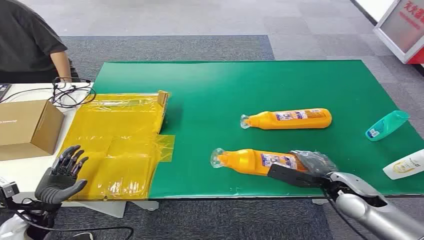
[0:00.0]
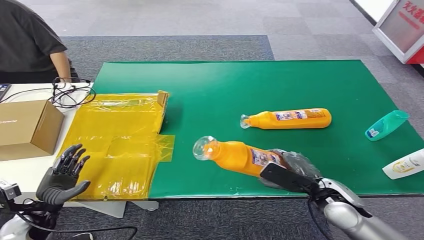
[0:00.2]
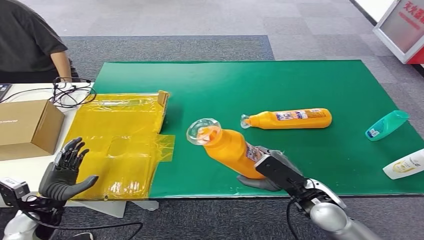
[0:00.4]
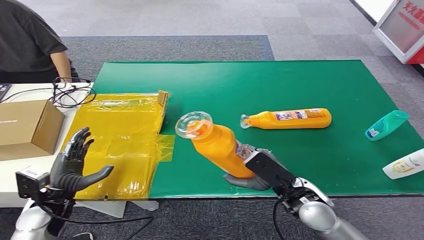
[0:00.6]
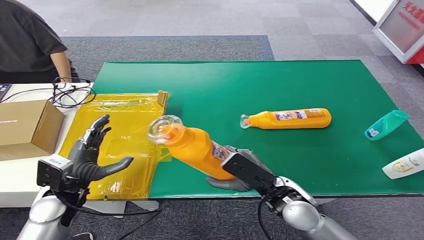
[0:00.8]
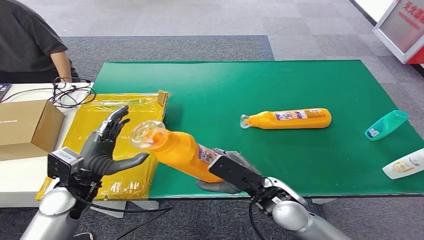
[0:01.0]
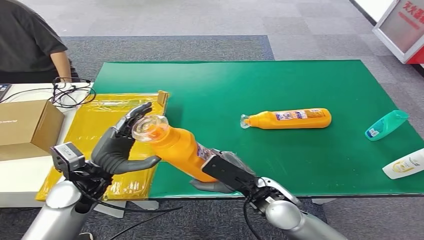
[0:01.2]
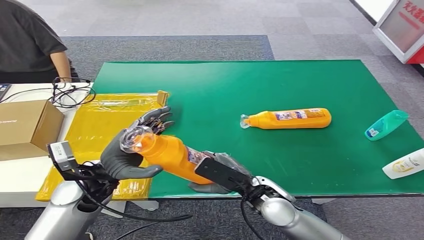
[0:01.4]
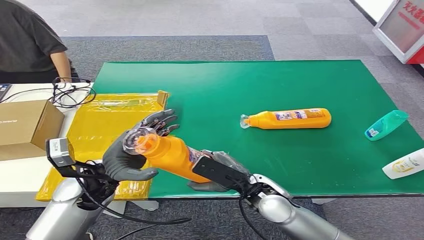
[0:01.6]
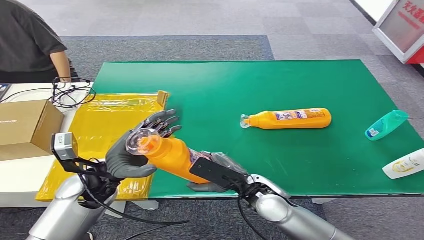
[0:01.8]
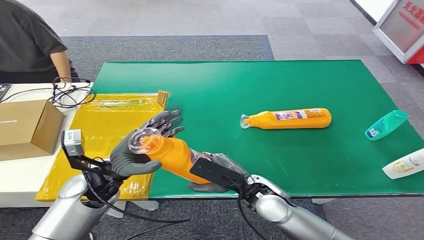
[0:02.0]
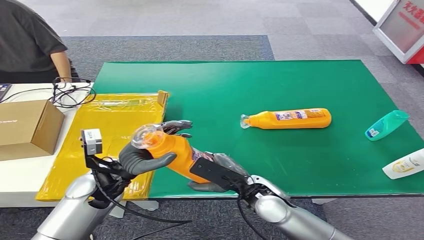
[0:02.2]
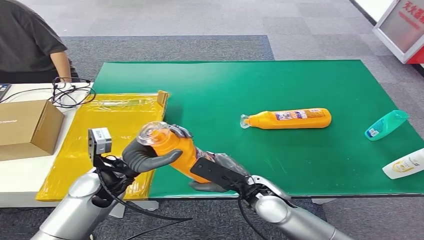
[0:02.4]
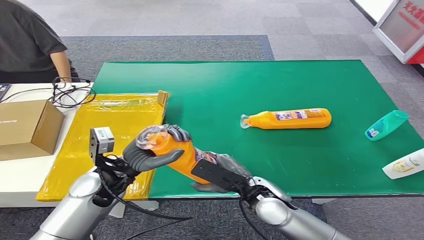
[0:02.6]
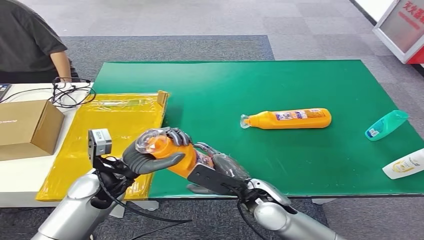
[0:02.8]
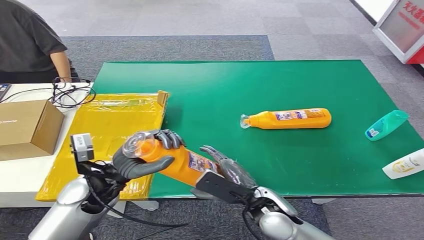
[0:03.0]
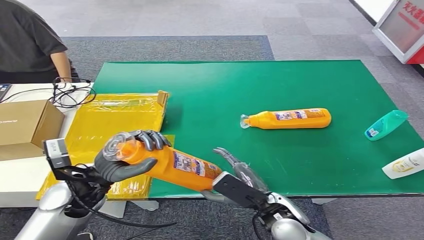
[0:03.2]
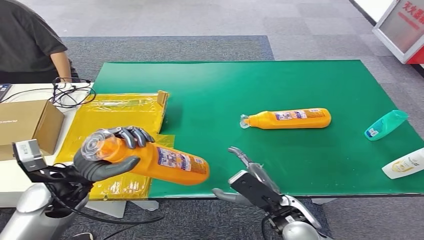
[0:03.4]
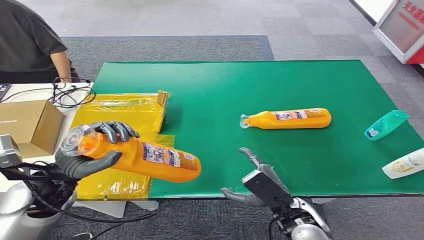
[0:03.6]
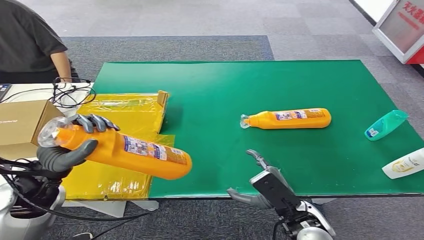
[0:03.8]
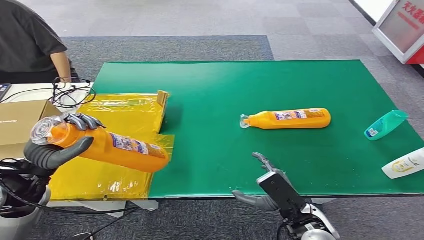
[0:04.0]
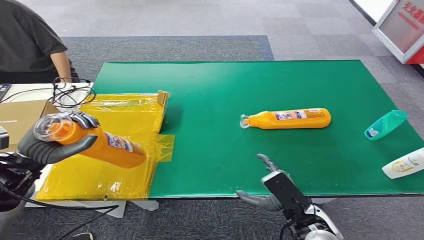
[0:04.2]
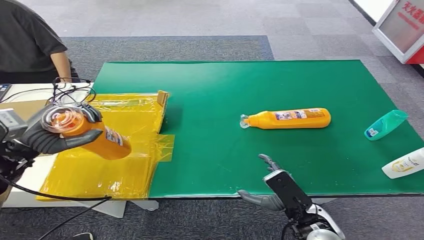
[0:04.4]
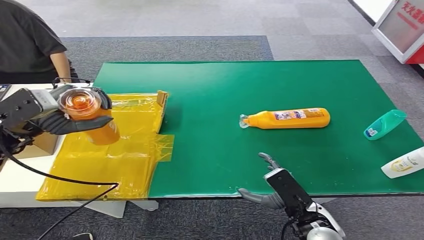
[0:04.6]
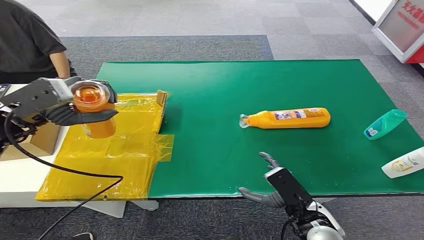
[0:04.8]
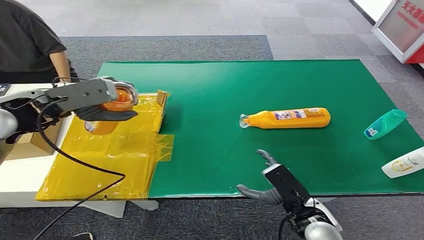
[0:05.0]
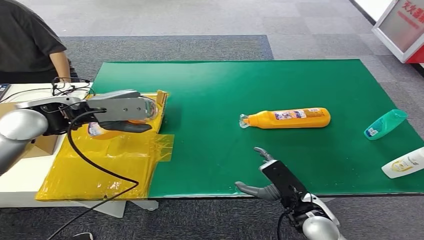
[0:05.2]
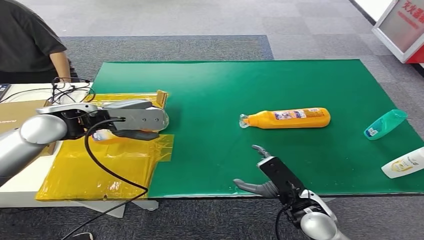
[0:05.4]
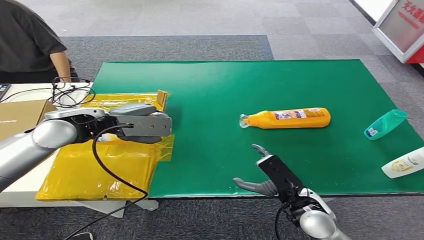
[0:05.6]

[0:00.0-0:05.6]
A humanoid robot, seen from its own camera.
Step, 0:00.0 to 0:00.8: Pick up the bottle from the table.
Step, 0:01.0 to 0:05.6: Turn the bottle to the front side.
0:01.4 to 0:02.8: The hands move only a little.
0:02.8 to 0:04.2: The right hand is displaced to the right and backward by some 15 cm. Meanwhile the left hand moves to the left and upward, roughly 20 cm.
0:04.2 to 0:05.6: The left hand shifts approximately 20 cm forward, to the right and upward.
